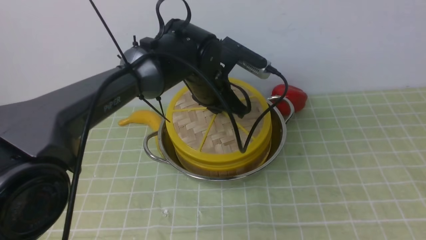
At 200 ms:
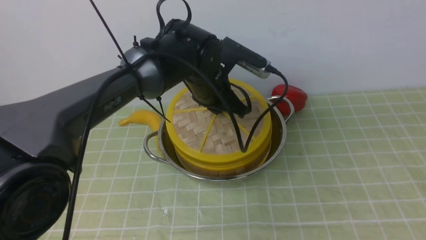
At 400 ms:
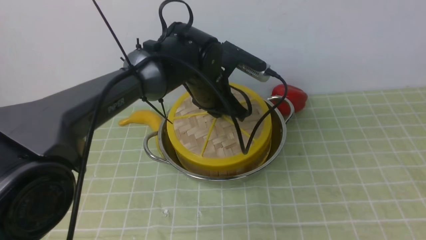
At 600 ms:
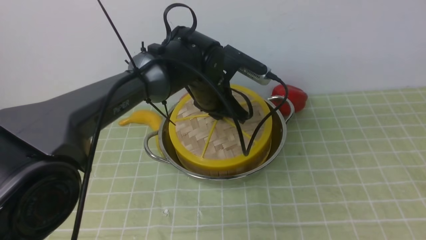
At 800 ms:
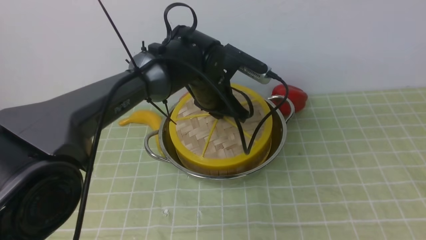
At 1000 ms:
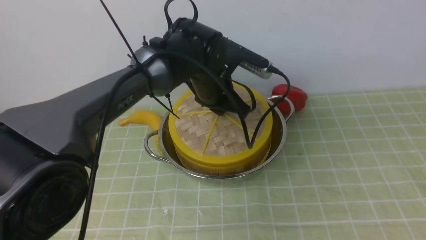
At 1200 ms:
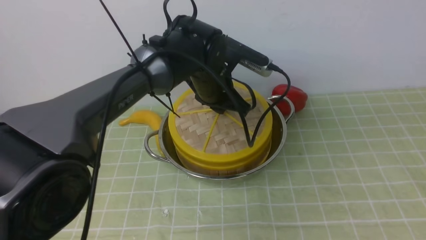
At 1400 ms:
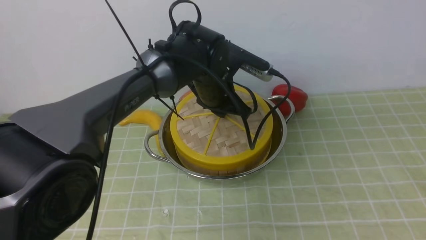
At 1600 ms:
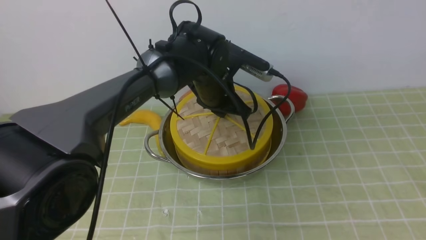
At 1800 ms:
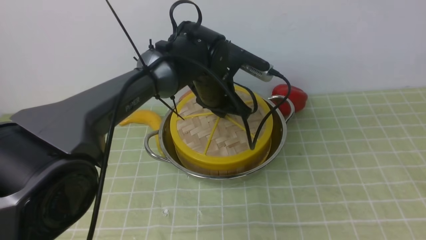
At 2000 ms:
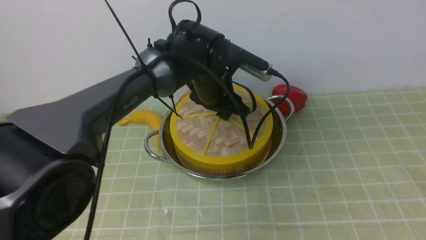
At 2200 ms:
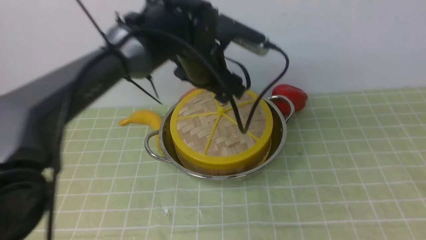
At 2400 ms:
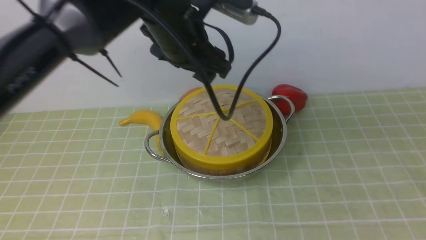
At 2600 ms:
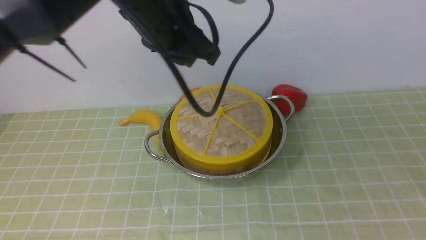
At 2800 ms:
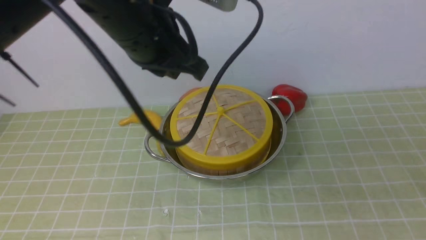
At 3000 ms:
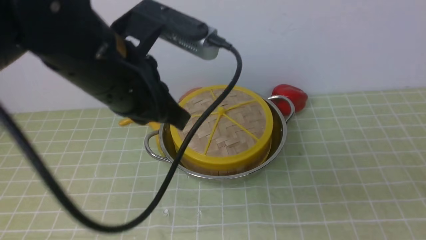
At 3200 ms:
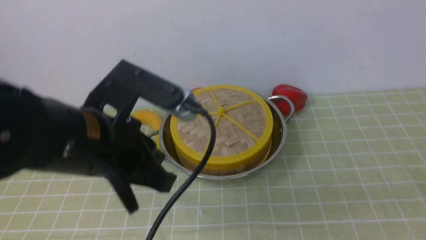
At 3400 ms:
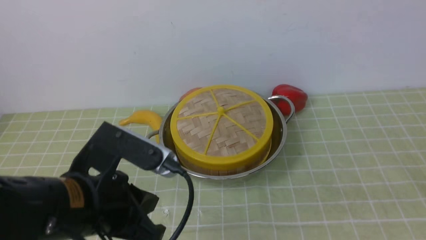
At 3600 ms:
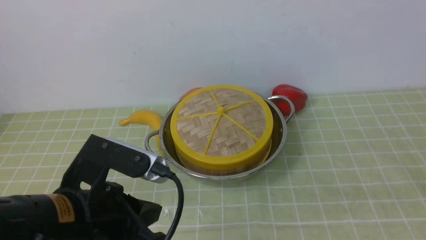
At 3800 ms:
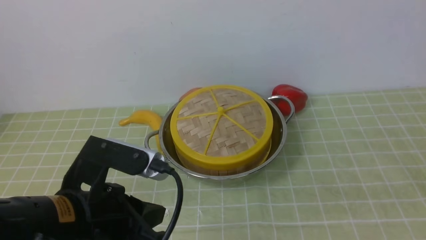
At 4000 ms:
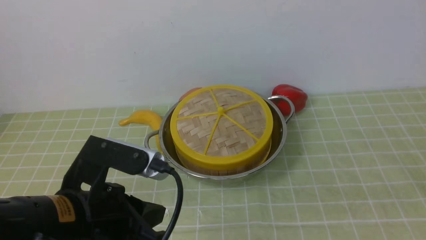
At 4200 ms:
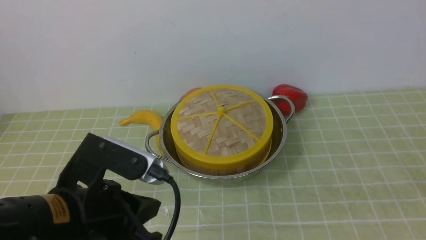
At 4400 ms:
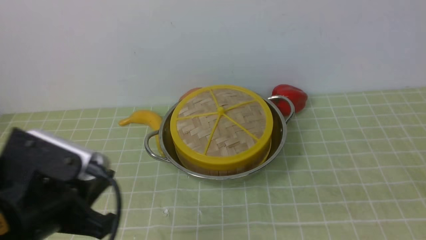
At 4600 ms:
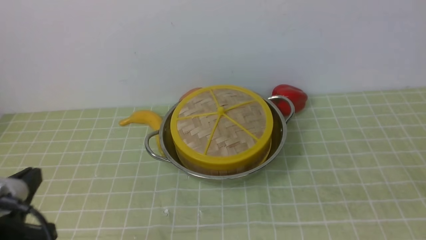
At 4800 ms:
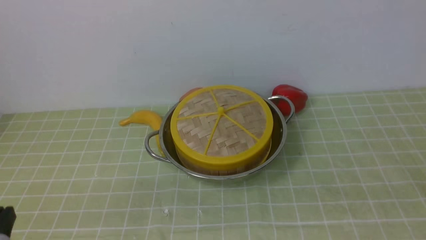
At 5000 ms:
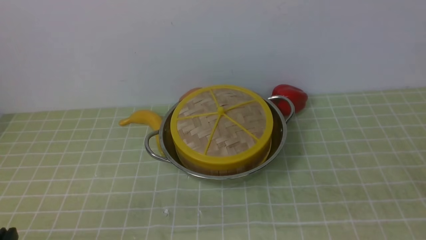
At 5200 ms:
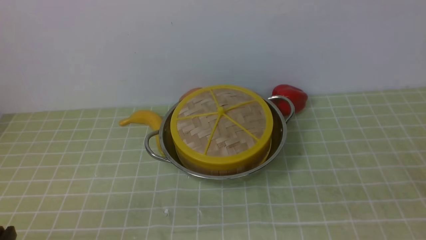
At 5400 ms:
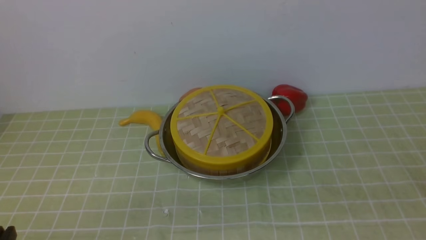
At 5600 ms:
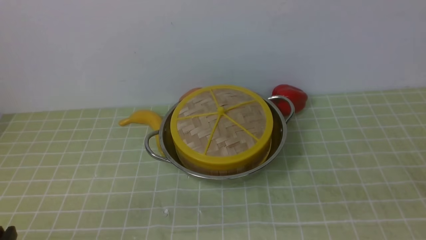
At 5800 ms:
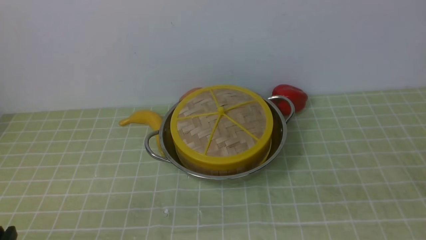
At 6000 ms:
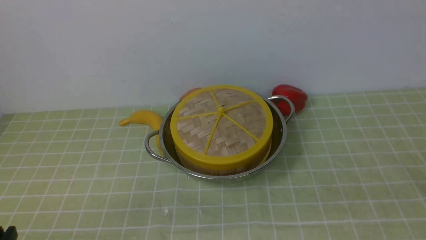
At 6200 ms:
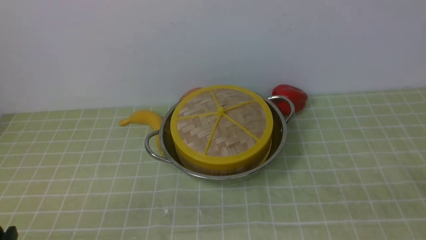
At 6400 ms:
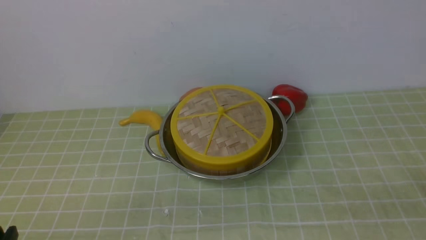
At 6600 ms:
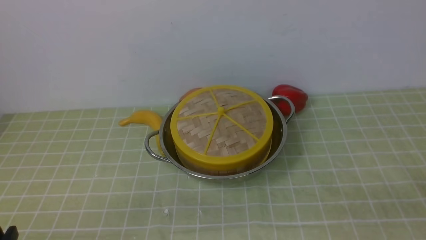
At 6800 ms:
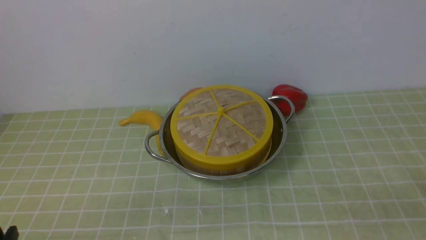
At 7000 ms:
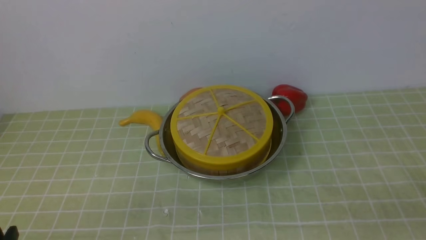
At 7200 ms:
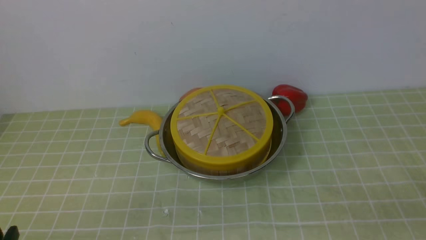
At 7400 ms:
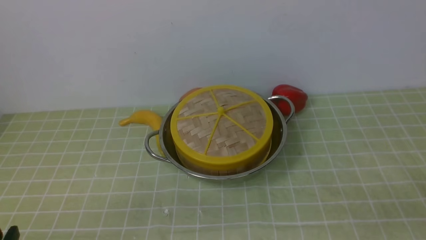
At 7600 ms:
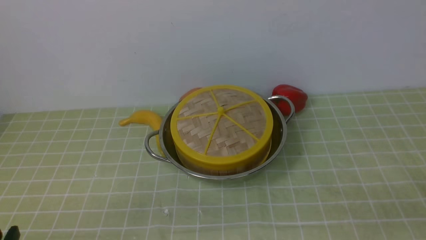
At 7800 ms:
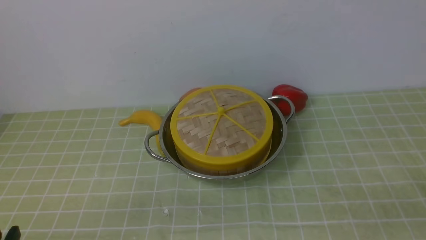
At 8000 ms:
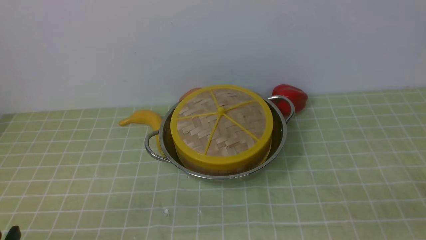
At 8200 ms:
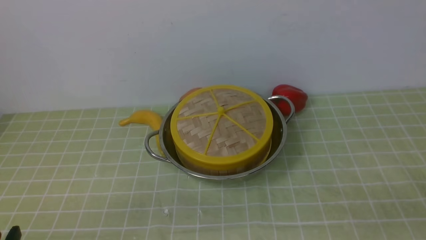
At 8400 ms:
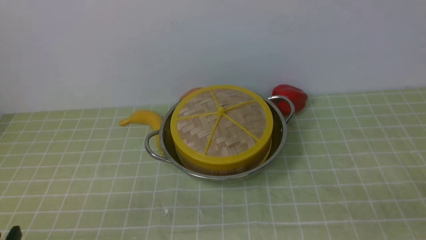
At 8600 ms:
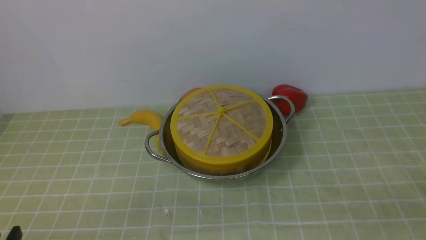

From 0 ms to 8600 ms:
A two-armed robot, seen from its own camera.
Task of the whole recording: place the steamer in the pot on the green tablecloth, and put the lid on the steamer.
Step, from 0 ms to 2400 ms: use the left arm to place the steamer lid on the steamer.
From 0 ms to 1400 ms: There are only small adjustments of the grippers.
From 1400 ms to 2800 ms: The left gripper moves upward, backward and to the left, about 20 cm, and opens and closes again; the right gripper heads downward, covering some 15 cm, and closes.
From 2800 ms to 4400 ms: The left gripper travels backward, downward and to the left by roughly 25 cm.
From 4400 ms to 5800 ms: The left gripper goes some 15 cm downward, backward and to the left.
From 7200 ms to 8600 ms: Both grippers stay about where they are.
